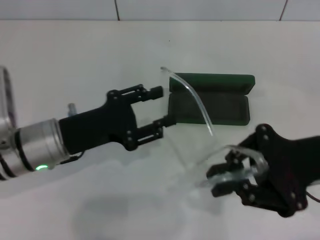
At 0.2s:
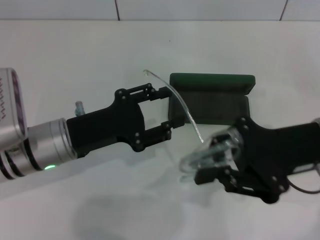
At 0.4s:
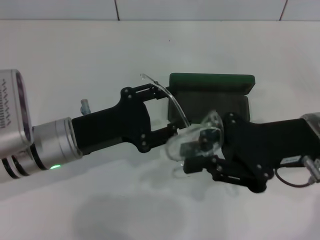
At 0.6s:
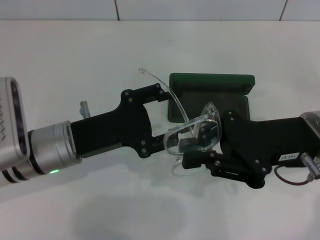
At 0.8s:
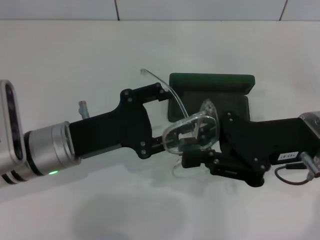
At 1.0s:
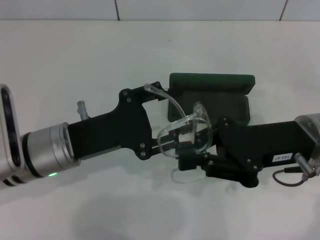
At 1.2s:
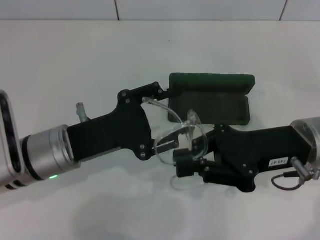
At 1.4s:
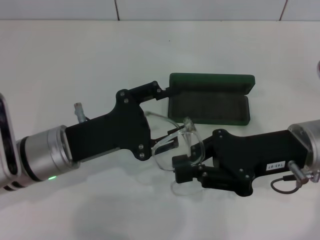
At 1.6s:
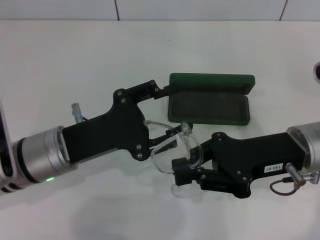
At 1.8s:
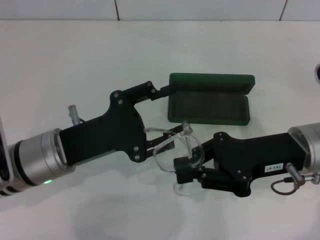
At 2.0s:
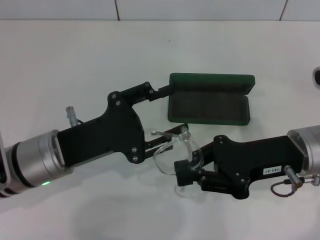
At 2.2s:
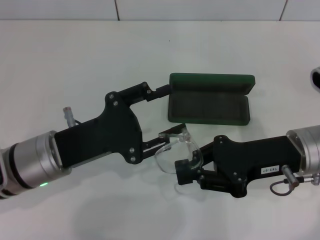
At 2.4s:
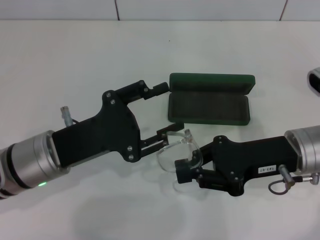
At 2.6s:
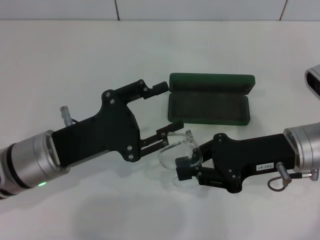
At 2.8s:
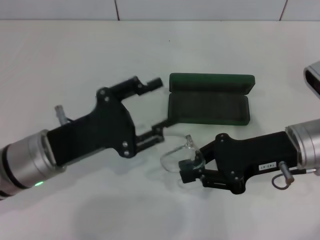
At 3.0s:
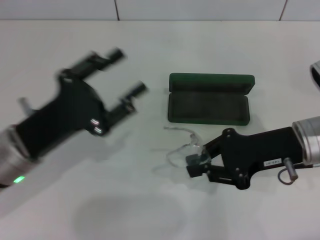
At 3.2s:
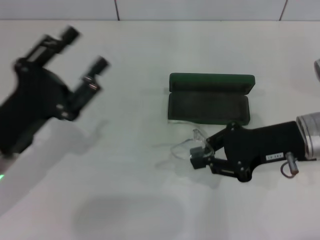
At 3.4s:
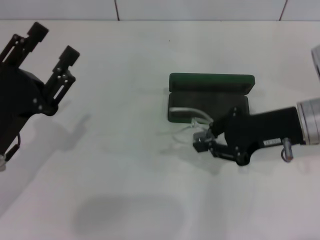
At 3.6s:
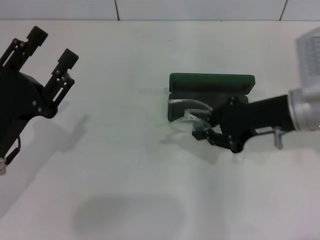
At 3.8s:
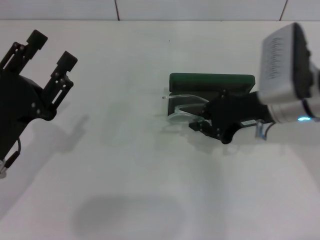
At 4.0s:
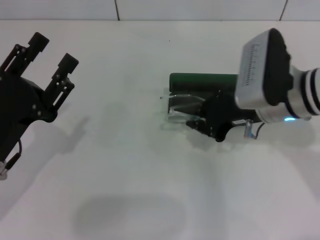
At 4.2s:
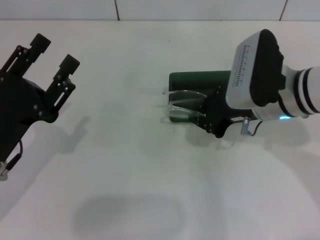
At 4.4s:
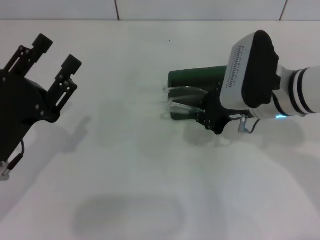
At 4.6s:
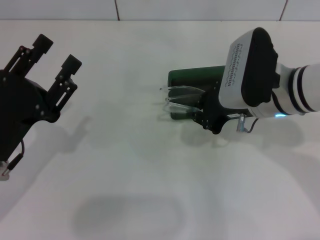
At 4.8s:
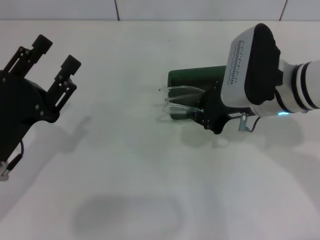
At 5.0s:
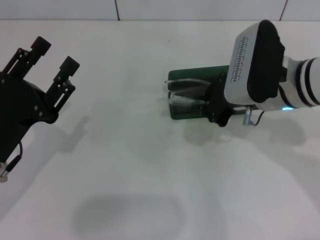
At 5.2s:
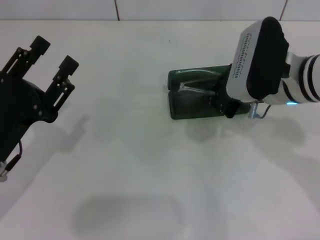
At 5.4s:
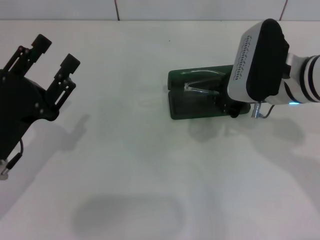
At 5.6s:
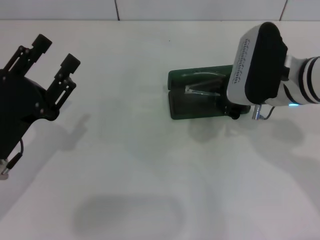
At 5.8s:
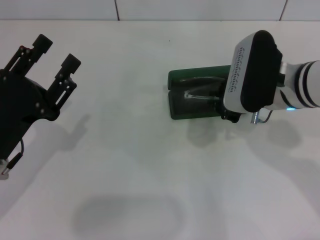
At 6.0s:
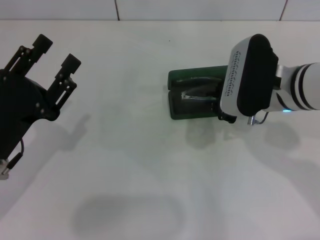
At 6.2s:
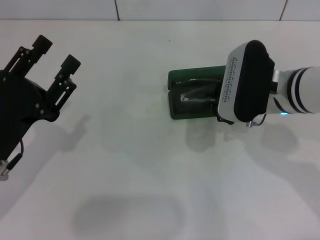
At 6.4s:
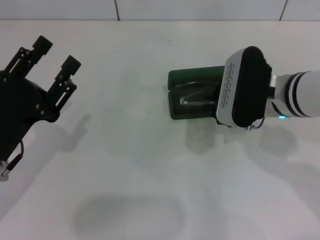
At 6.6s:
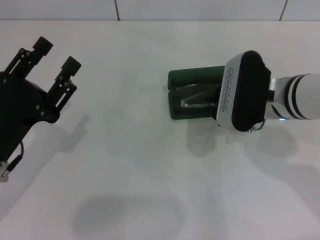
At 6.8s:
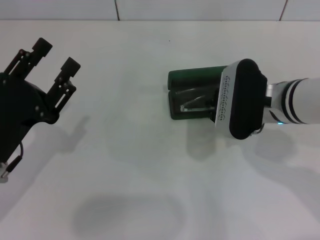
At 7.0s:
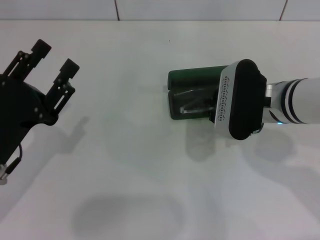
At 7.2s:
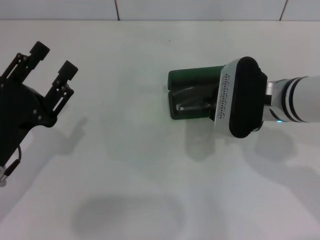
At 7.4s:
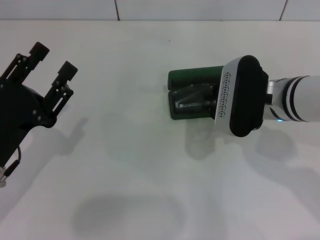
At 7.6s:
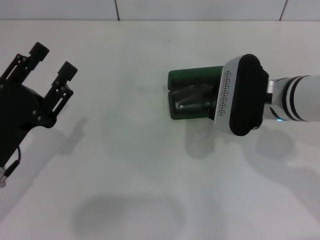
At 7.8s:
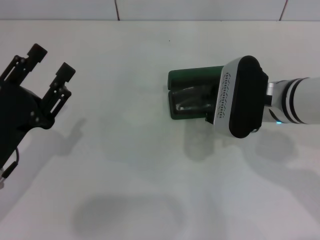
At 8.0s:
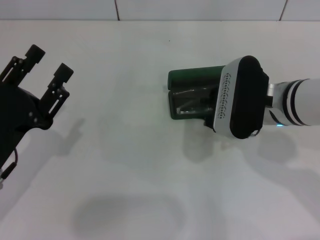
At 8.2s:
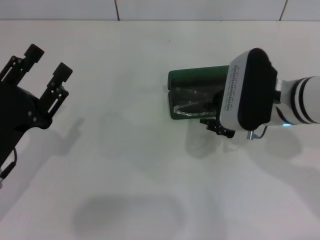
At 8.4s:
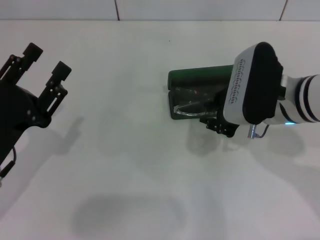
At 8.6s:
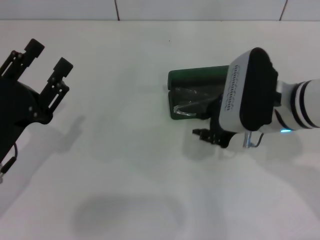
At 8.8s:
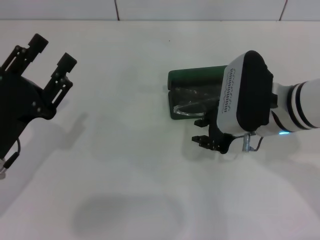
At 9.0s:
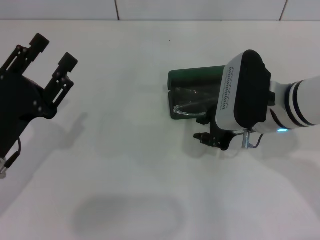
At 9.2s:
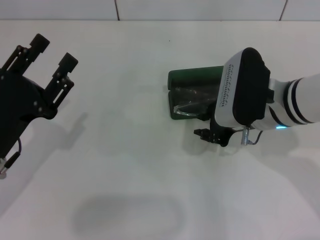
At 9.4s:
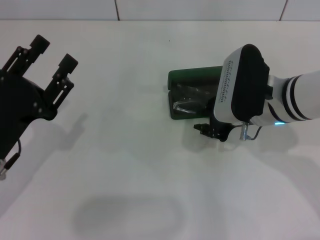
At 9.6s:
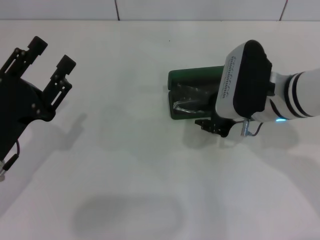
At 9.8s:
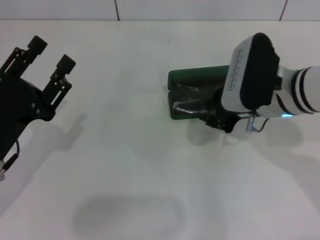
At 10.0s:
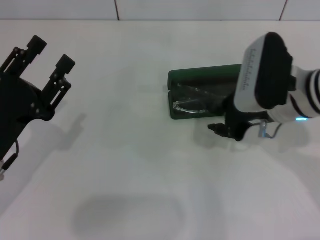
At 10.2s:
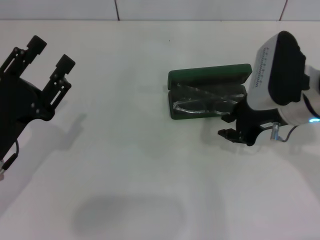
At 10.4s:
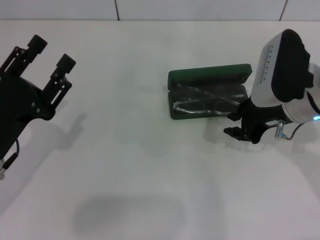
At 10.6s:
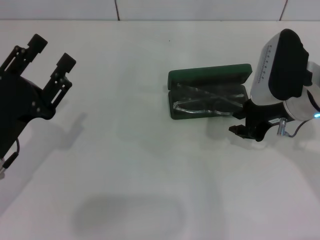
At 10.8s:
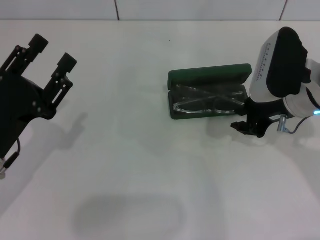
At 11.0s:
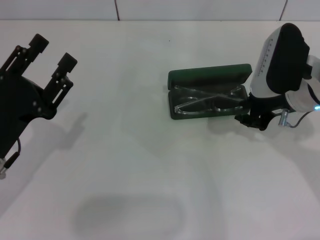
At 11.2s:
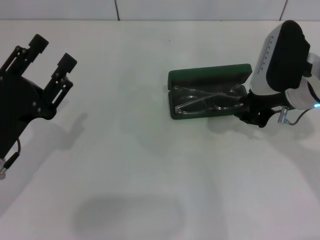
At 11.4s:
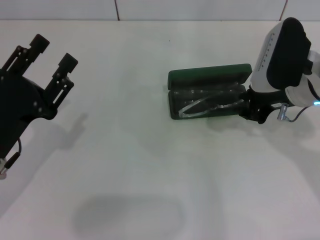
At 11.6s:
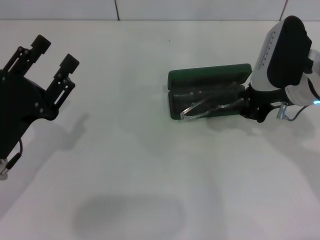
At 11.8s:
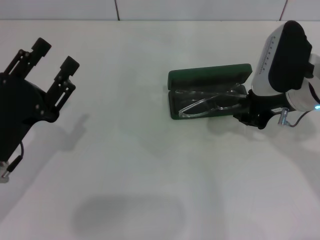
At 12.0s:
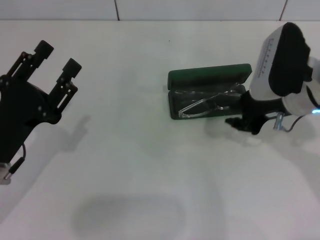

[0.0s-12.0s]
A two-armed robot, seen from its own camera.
Step, 0.0s to 2.4s: Fold the frame with your left hand.
3.0s to 4.4s: The right gripper is displaced to the left by some 5 cm.
4.4s to 12.0s: The grippers make only small movements.

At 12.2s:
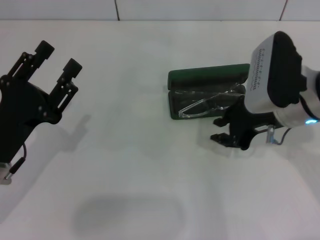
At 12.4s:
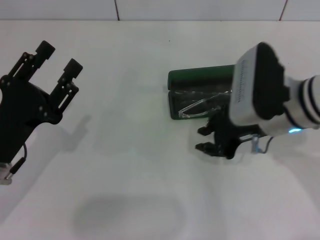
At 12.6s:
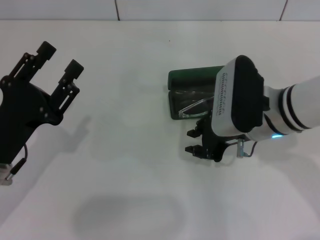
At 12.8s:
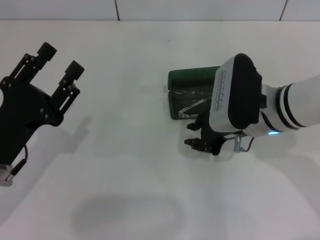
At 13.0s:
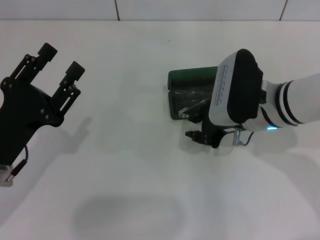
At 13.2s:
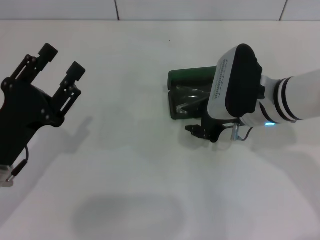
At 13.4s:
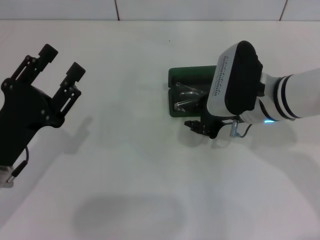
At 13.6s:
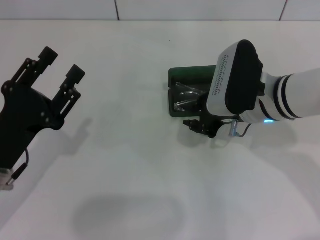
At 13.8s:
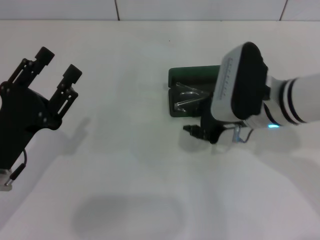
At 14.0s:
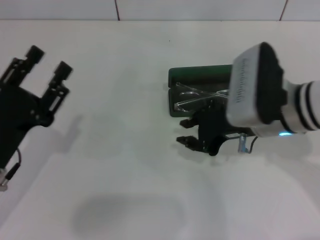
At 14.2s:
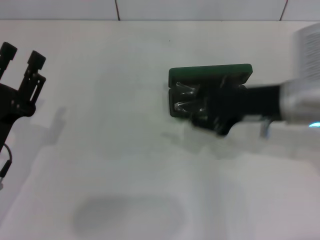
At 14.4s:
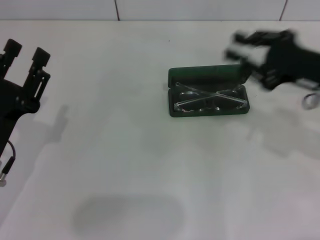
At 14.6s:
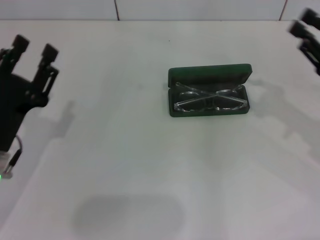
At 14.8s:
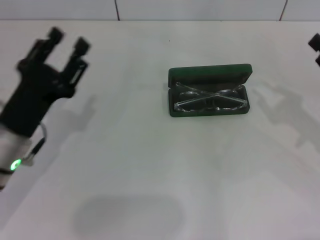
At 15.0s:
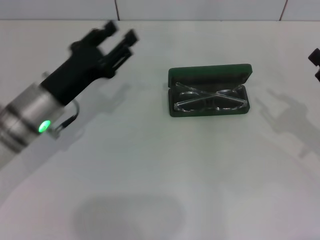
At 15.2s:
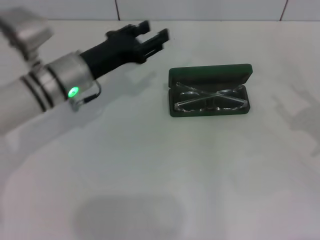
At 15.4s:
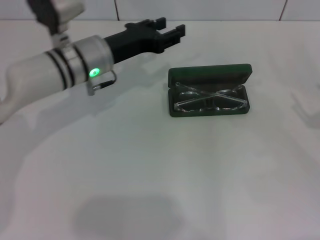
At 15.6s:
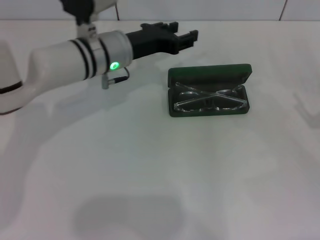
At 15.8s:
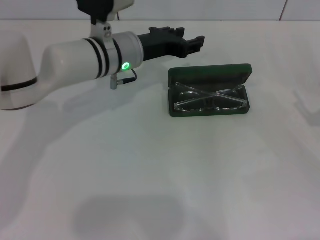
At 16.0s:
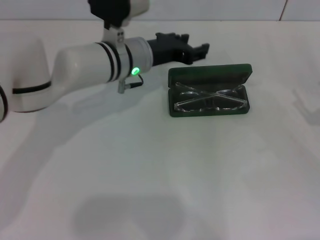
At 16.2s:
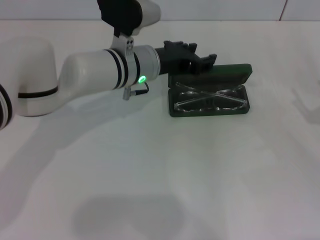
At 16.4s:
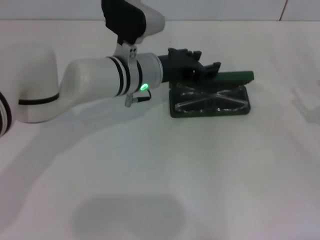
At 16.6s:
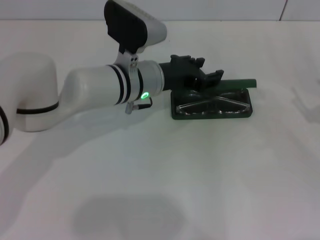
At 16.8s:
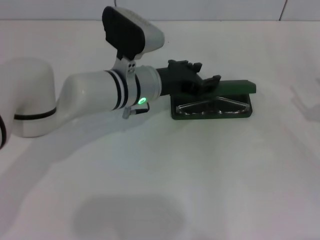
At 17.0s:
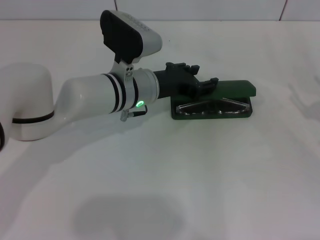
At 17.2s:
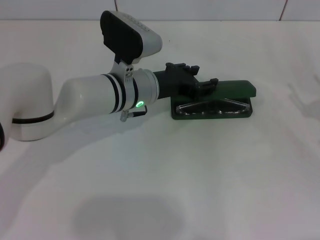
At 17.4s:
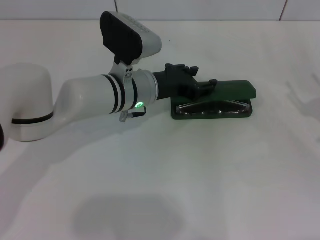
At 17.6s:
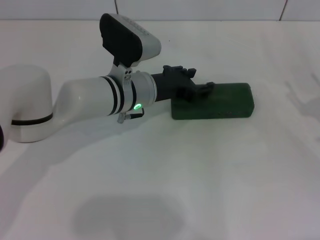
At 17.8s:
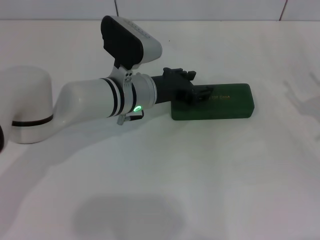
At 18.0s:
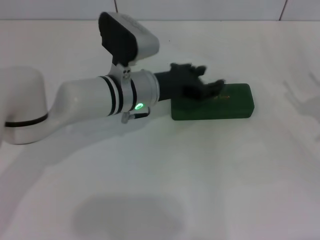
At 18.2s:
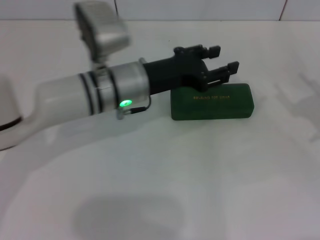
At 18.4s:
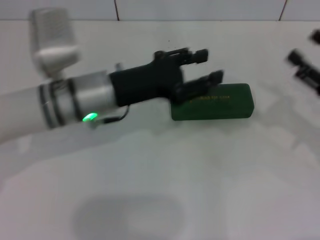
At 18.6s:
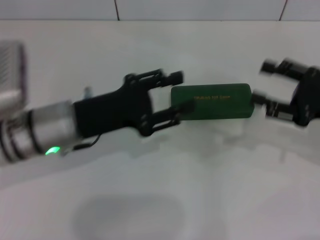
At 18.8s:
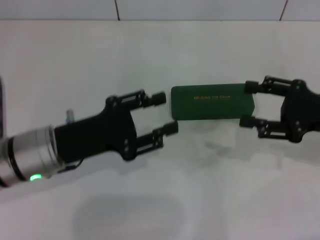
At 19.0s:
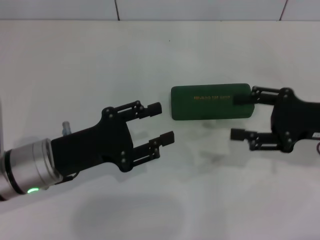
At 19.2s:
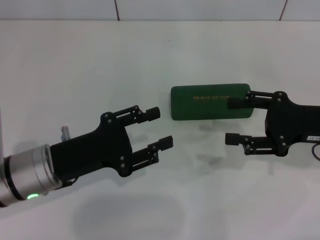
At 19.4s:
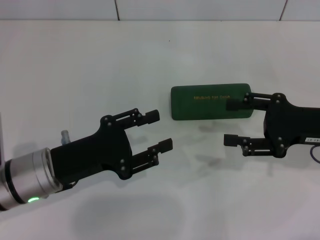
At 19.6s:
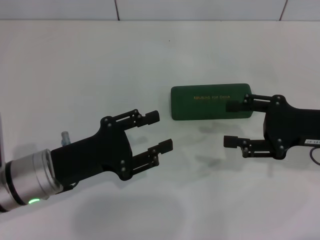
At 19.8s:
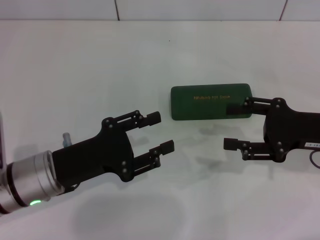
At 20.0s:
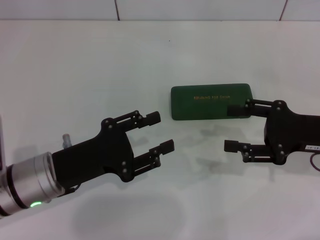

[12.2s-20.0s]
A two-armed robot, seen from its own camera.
Step, 13.8s to 17.4s: Close the glasses case with your left hand.
12.2s to 13.8s: The grippers stay close to where they were, moving slightly.
13.8s to 15.4s: The right gripper goes some 25 cm to the right and backward. Meanwhile the left gripper heads forward and to the right, covering approximately 20 cm.
15.4s to 16.8s: The left gripper travels to the right by about 5 cm.
16.8s to 18.4s: The left gripper is displaced to the left by roughly 5 cm.
18.4s to 20.0s: The left gripper goes about 10 cm backward and to the left; the right gripper ends up some 5 cm from where it was.

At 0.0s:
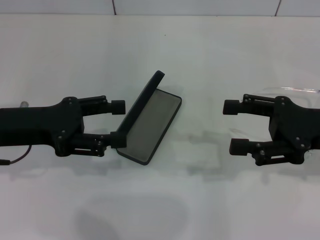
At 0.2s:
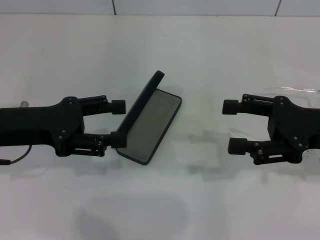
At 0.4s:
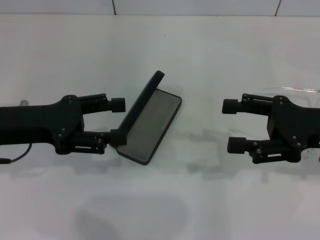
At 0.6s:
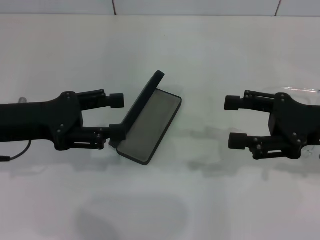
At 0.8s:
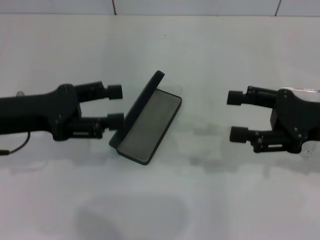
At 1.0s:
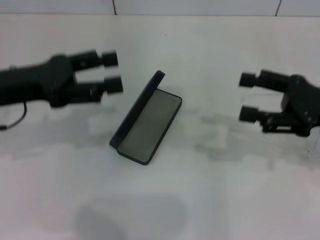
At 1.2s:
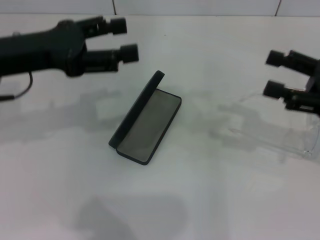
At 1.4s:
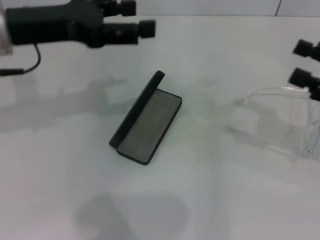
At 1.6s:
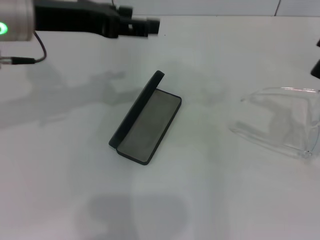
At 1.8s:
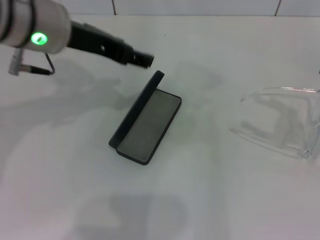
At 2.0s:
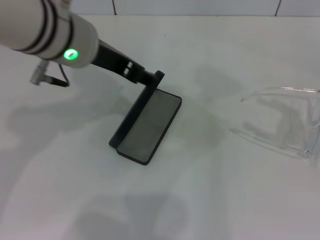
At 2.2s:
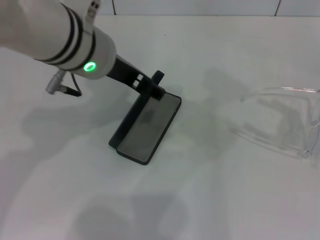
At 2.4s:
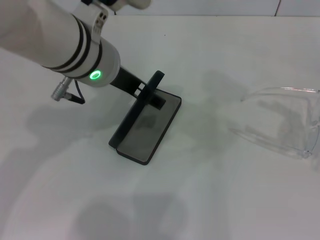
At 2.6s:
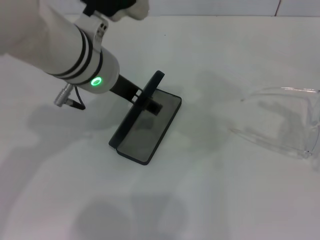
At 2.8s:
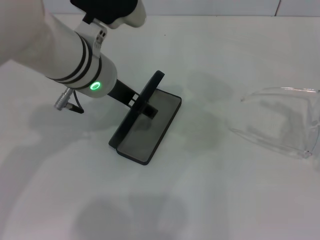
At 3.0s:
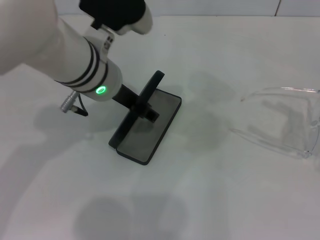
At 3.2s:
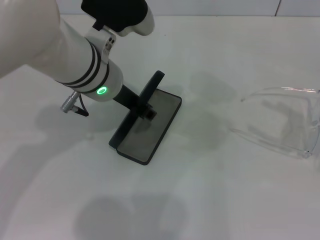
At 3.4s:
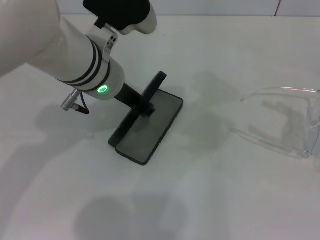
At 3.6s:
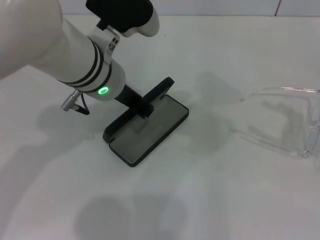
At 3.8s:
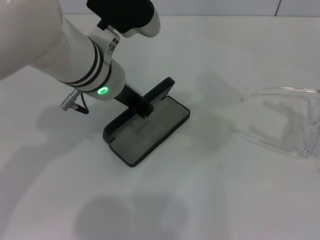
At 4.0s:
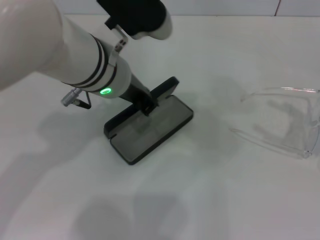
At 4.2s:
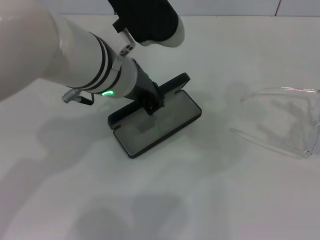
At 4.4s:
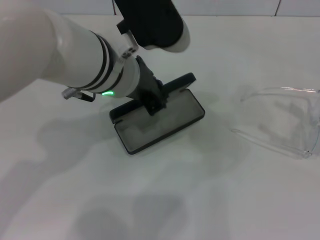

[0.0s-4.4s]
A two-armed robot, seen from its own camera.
Step, 0.0s to 4.0s: Grab the glasses case with your left hand.
0.0s to 1.4s: The right gripper heads to the right, covering some 5 cm. Meanwhile the left gripper travels upward and forward by some 10 cm.
1.4s to 3.0s: The left gripper shifts some 15 cm to the right and downward.
3.0s to 4.4s: The left gripper closes its fingers.
